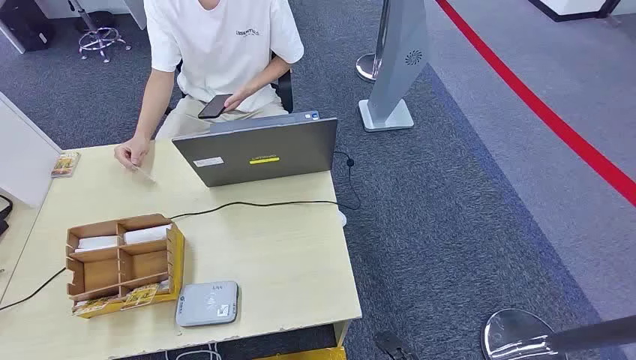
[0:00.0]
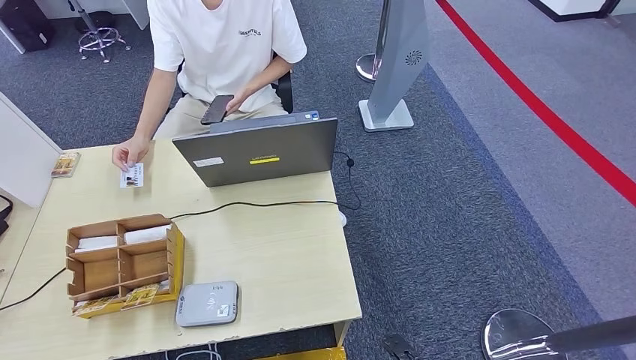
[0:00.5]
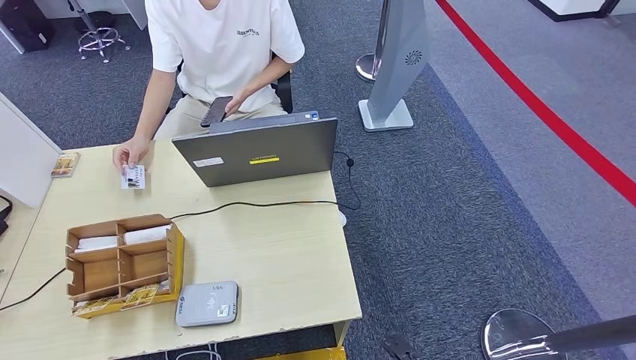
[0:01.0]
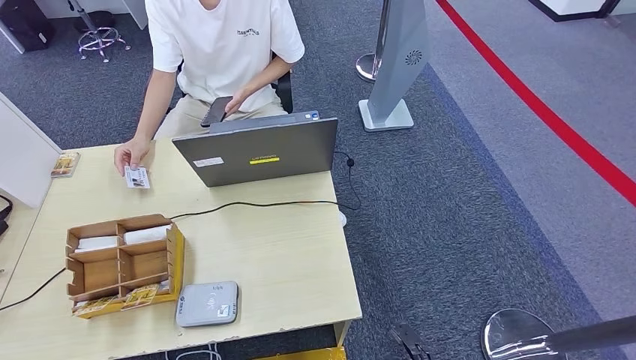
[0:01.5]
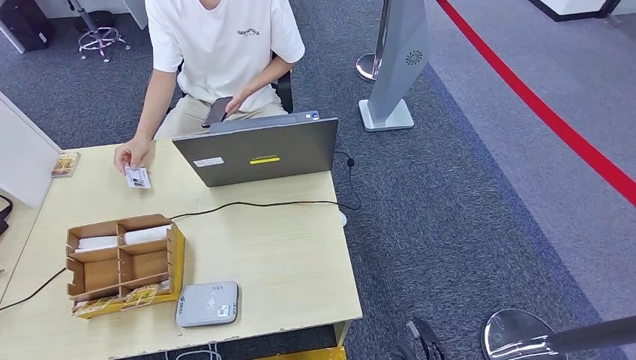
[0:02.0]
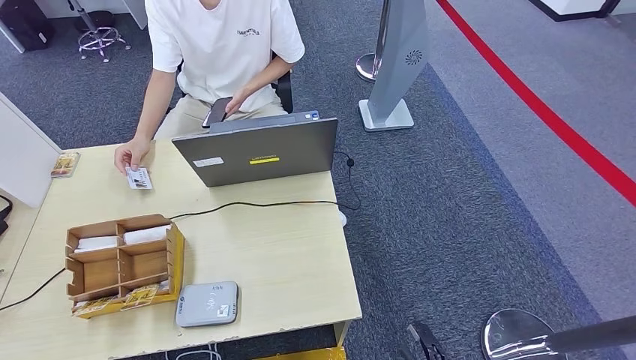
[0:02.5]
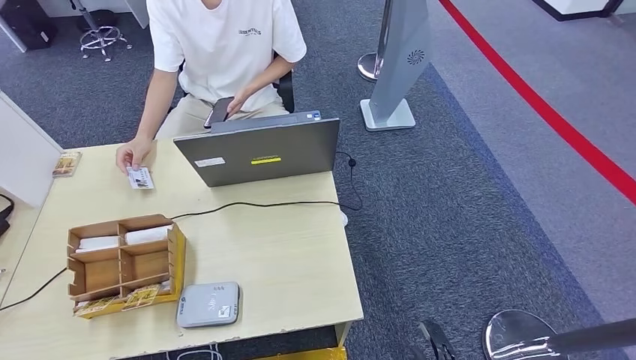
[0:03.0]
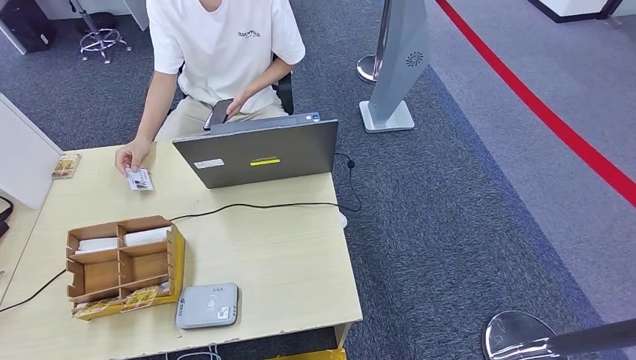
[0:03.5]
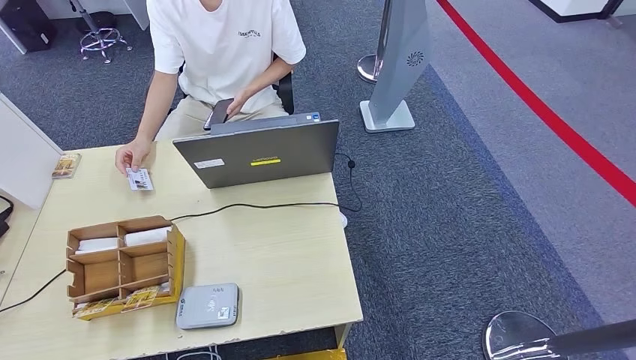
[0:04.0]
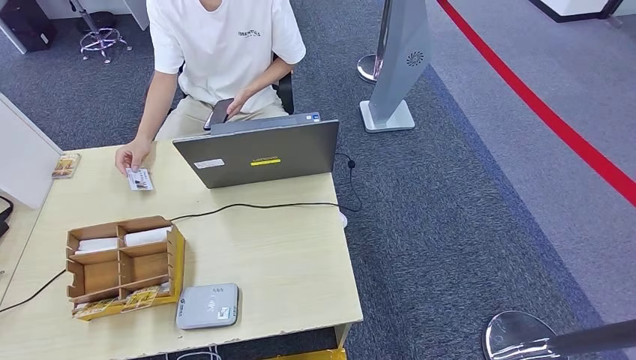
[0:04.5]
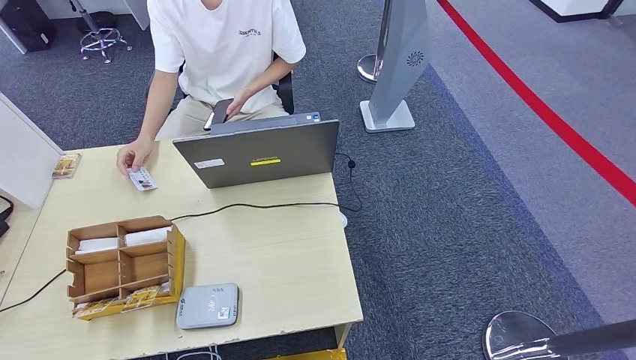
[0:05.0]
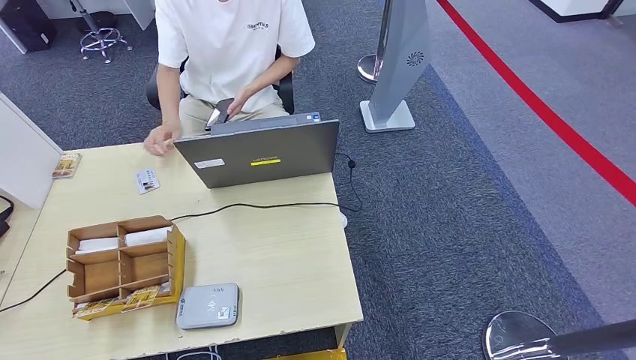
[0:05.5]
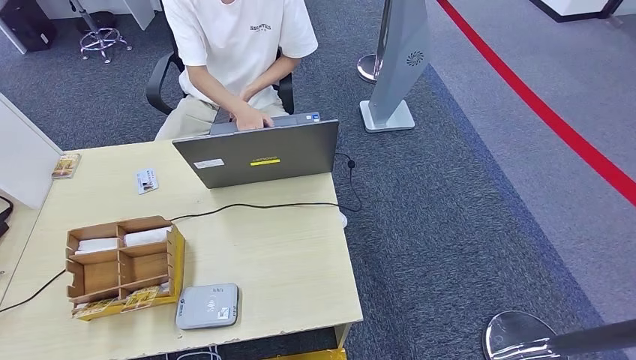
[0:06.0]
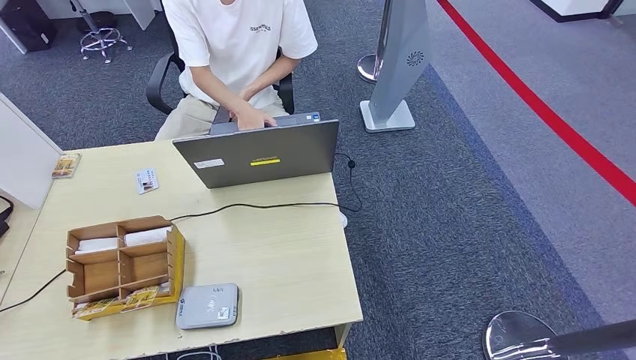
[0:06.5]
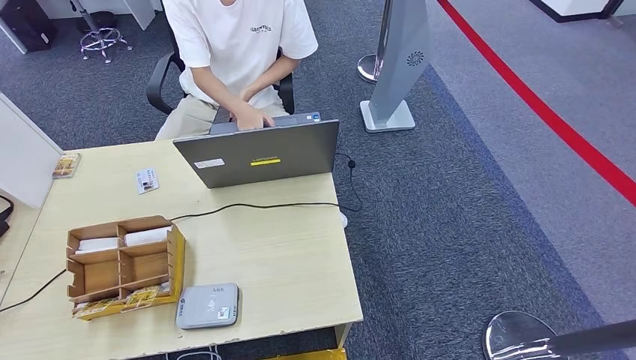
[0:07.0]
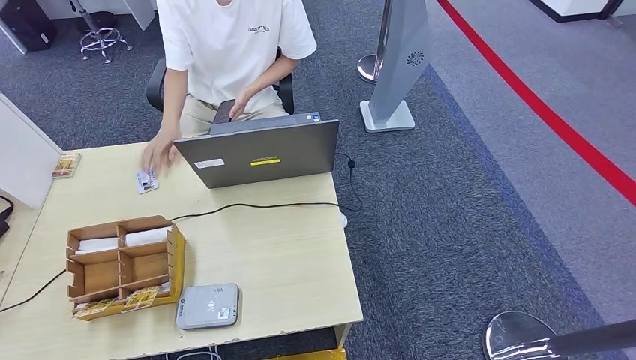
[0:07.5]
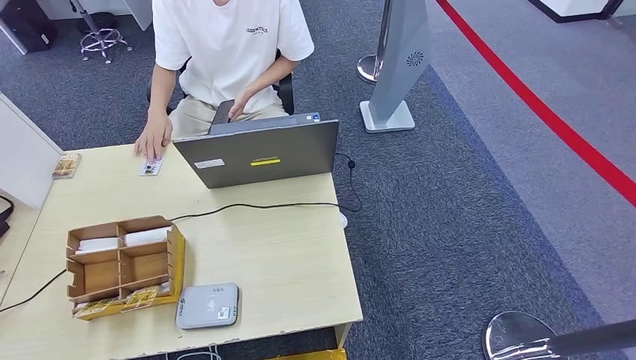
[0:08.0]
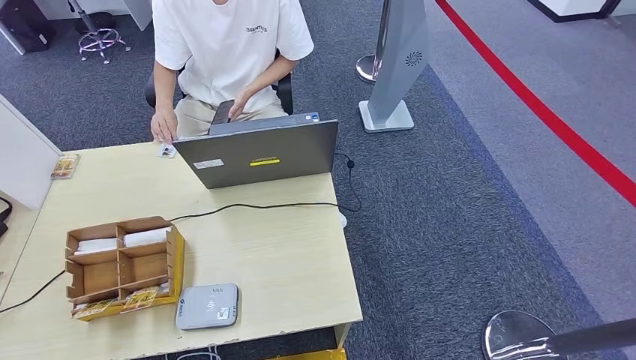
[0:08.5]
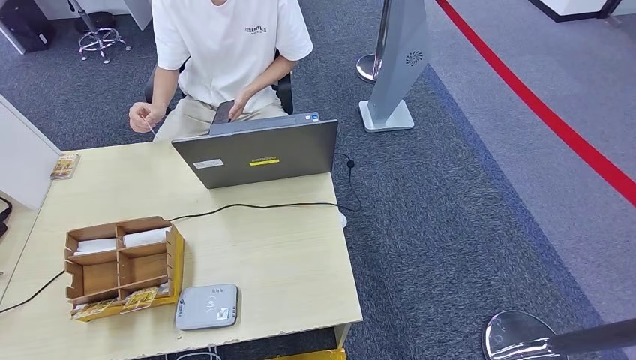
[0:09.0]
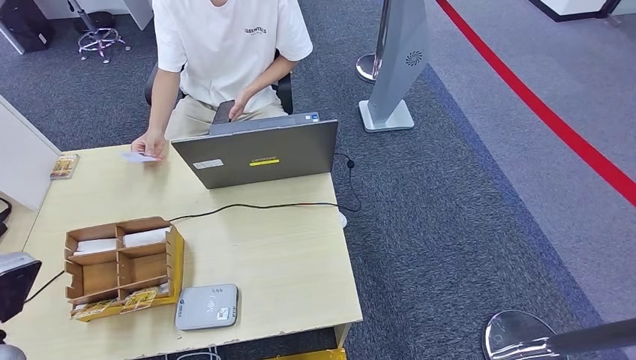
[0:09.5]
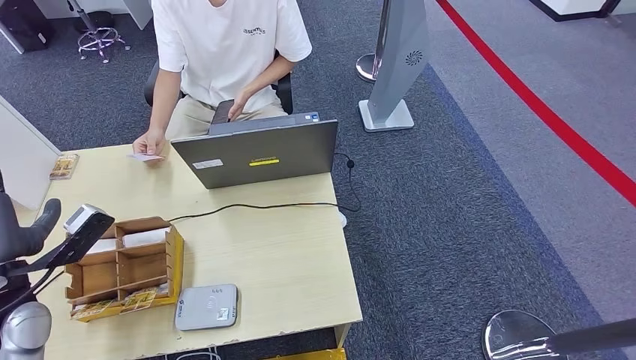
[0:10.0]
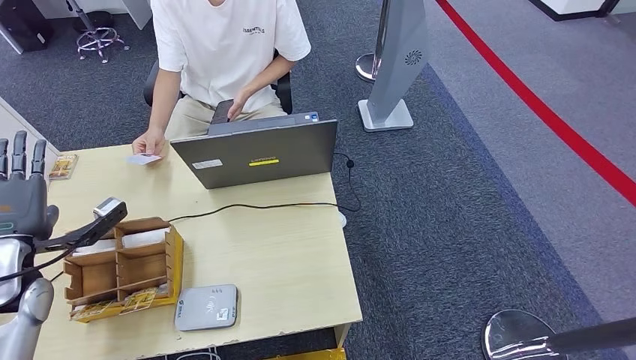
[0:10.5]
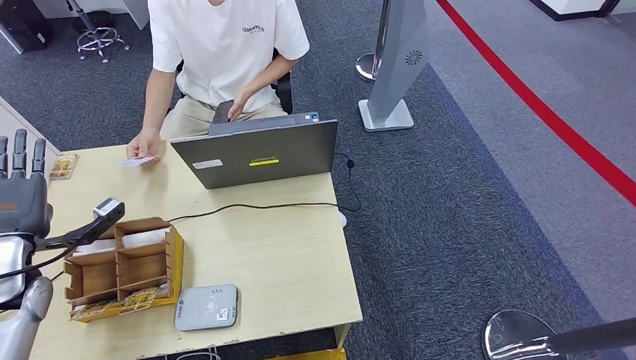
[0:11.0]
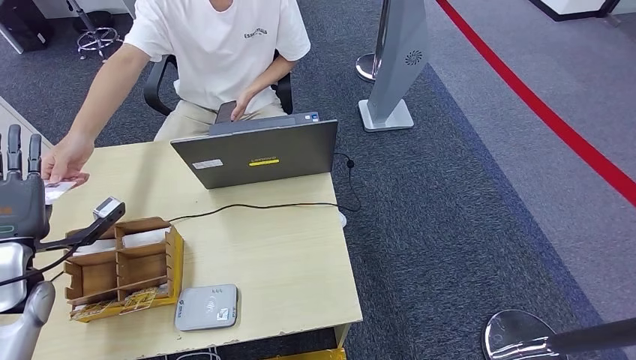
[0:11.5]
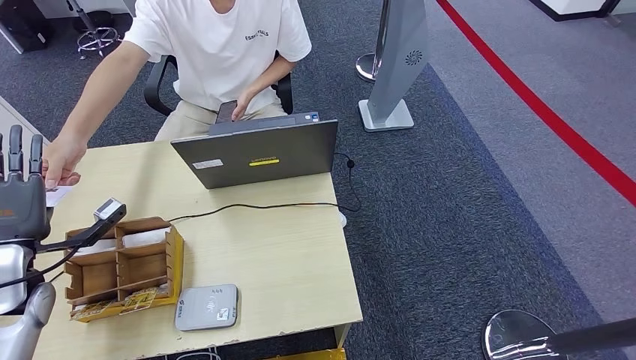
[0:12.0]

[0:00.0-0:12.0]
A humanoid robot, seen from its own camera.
0:02.0 to 0:04.0: The right hand is displaced backward by roughly 10 cm.
0:06.0 to 0:08.0: The left hand heads upward and to the left, covering roughly 25 cm.
0:08.0 to 0:10.0: The left hand is displaced forward and upward by about 25 cm.

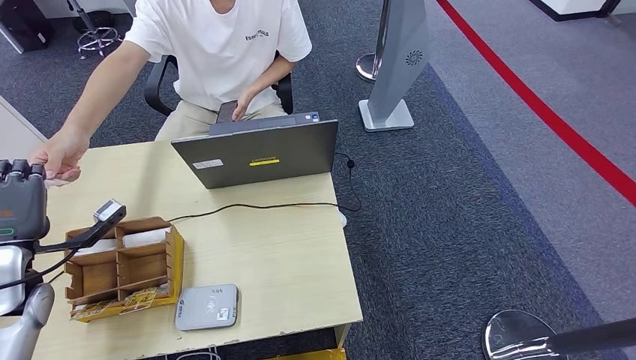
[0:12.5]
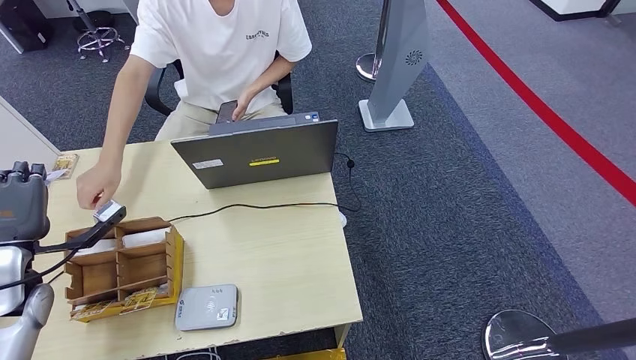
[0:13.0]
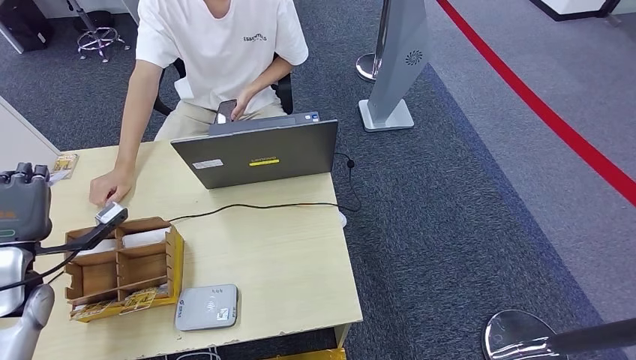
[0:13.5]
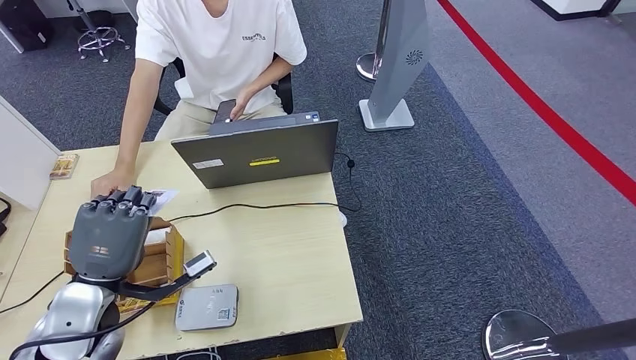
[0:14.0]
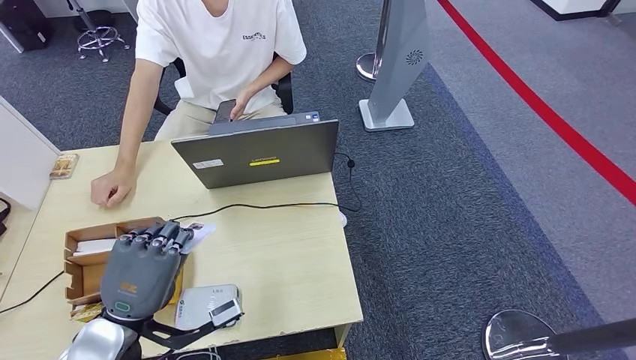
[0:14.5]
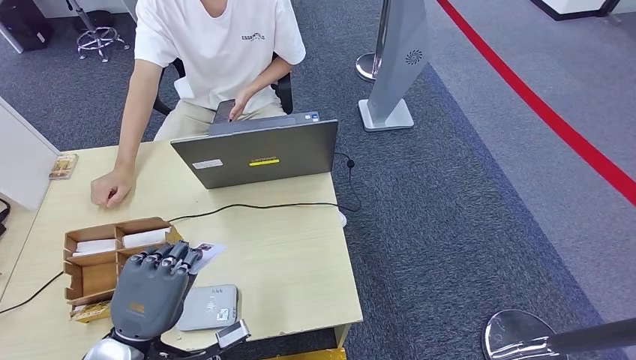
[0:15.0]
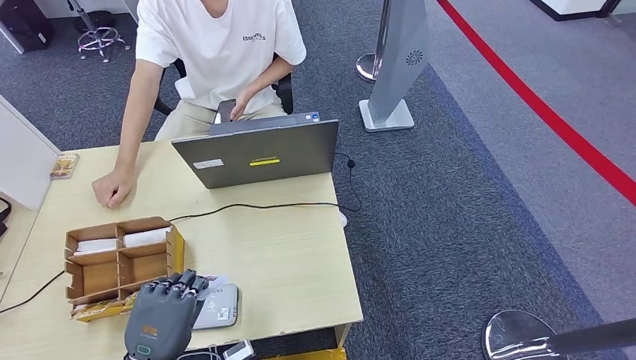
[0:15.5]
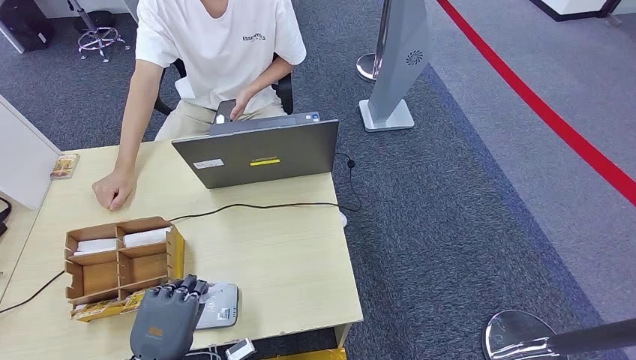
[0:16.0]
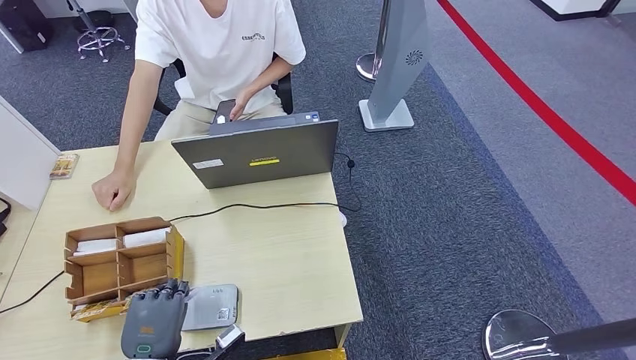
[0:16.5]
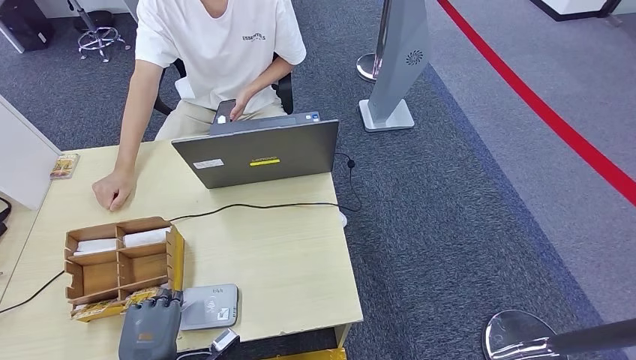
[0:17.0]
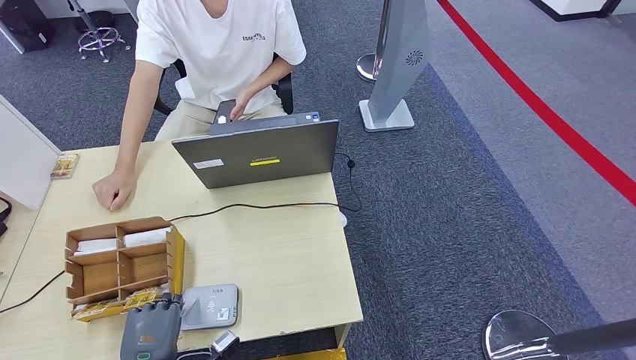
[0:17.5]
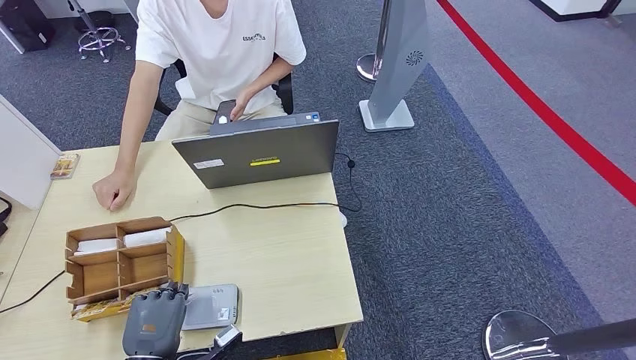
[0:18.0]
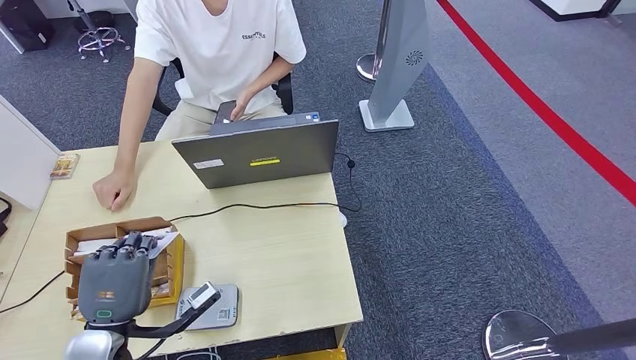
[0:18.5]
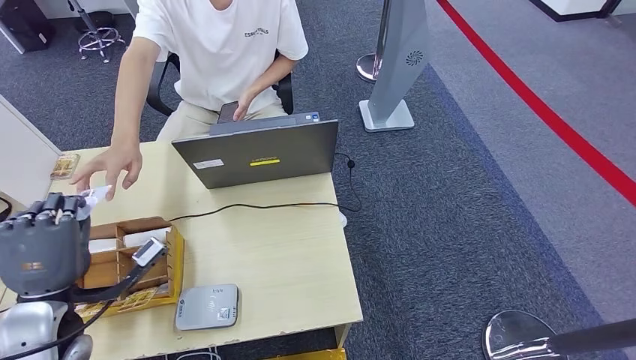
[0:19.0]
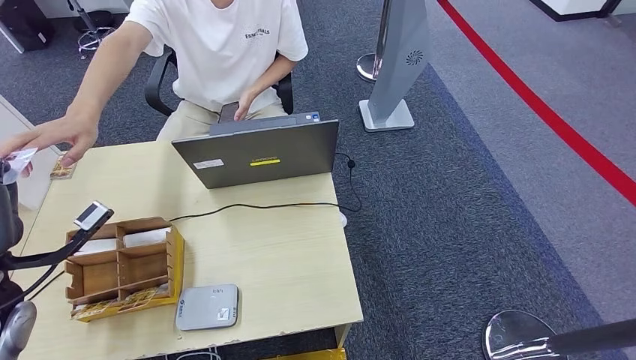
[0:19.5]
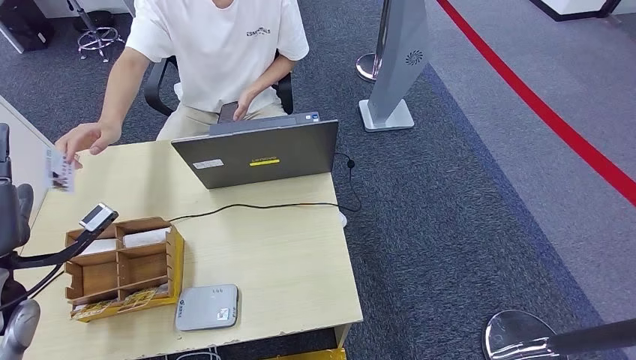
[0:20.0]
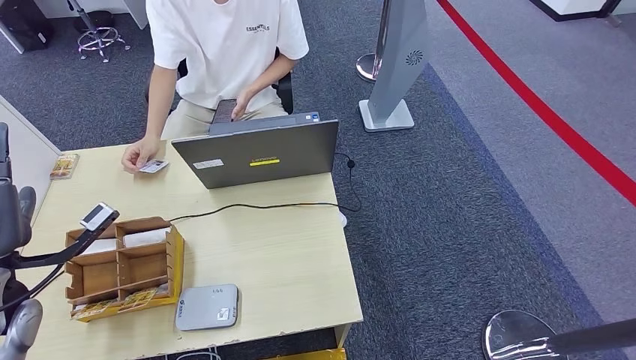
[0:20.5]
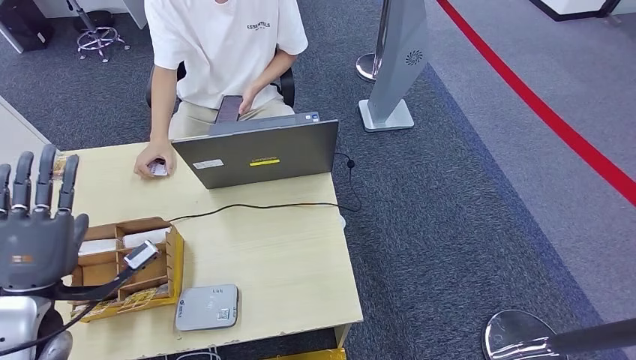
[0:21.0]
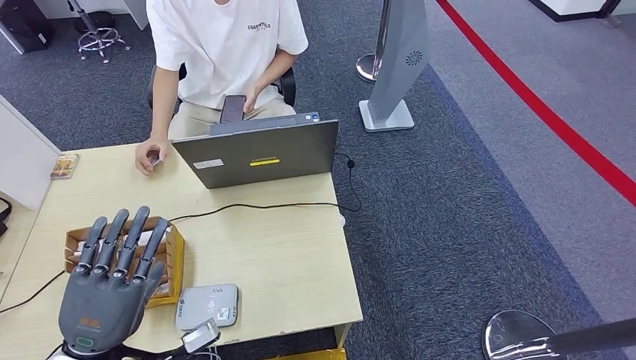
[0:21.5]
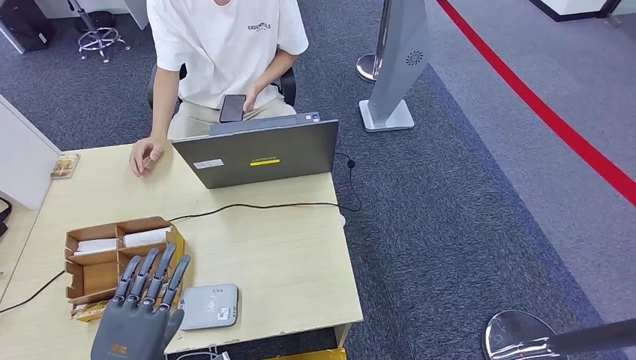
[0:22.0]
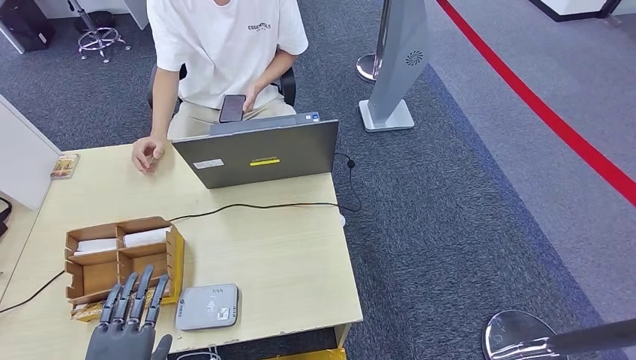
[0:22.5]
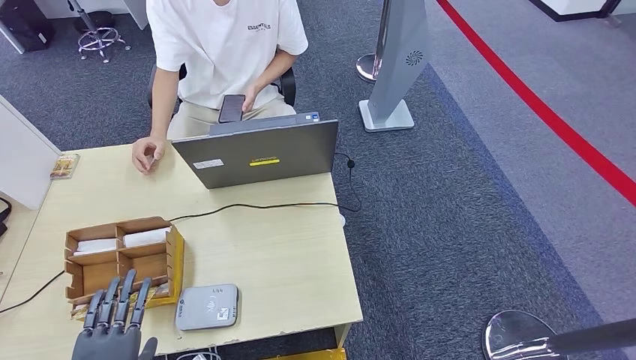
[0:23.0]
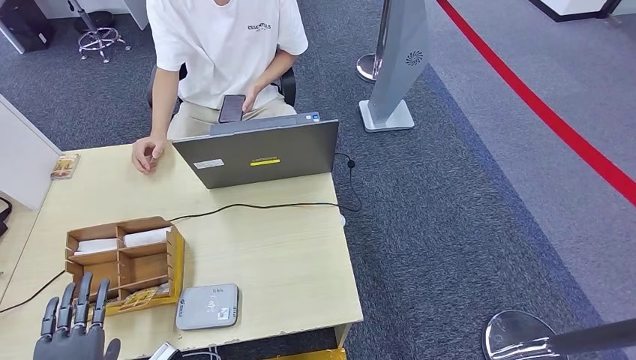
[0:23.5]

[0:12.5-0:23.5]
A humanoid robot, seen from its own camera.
Step, 0:13.0 to 0:17.5: Place the ID card on the card reader.
Step, 0:18.5 to 0:20.0: Hand the ID card to the person.
0:12.5 to 0:14.5: The left hand heads to the right and backward, covering approximately 20 cm.
0:14.5 to 0:16.0: The left hand shifts about 10 cm downward and backward.
0:18.0 to 0:20.0: The left hand heads upward, to the left and forward, covering roughly 25 cm.
0:20.0 to 0:21.5: The left hand shifts about 15 cm to the right and backward.
0:21.5 to 0:23.5: The left hand goes some 10 cm downward and backward.
